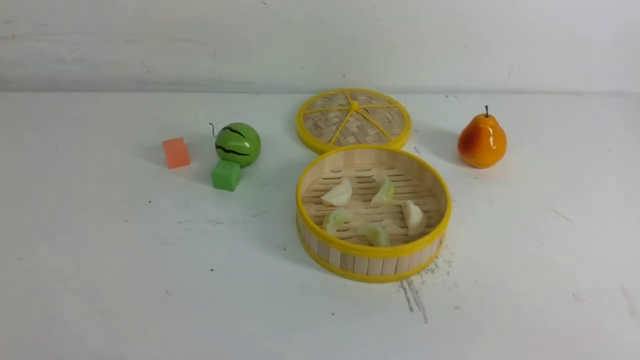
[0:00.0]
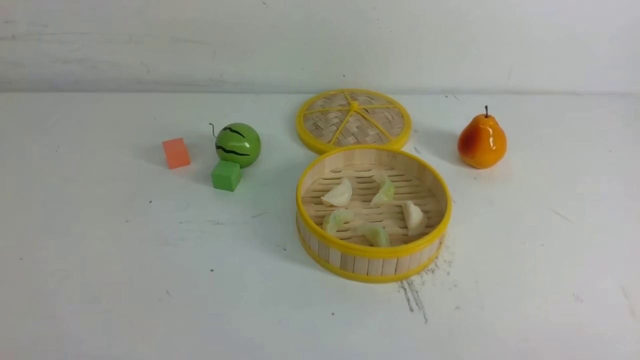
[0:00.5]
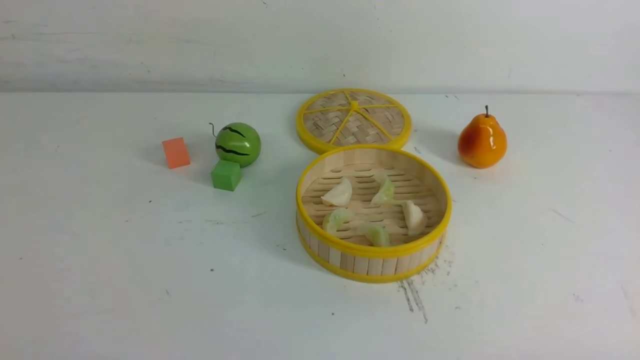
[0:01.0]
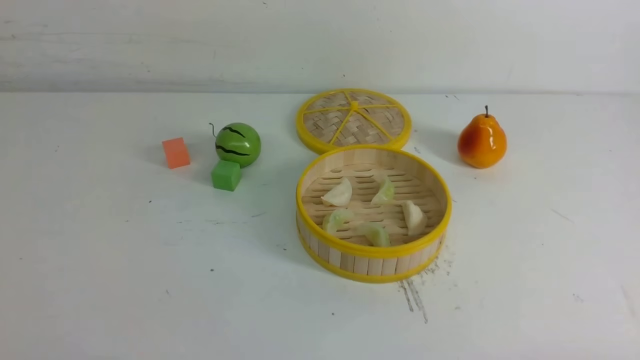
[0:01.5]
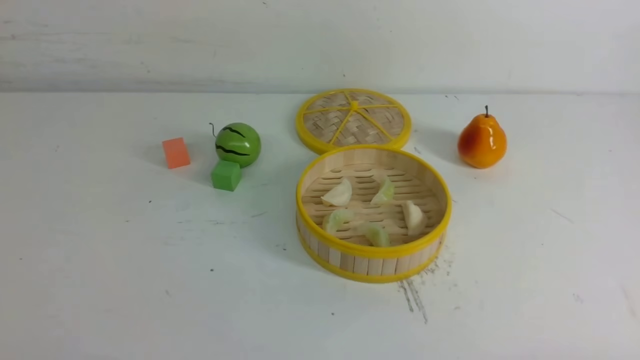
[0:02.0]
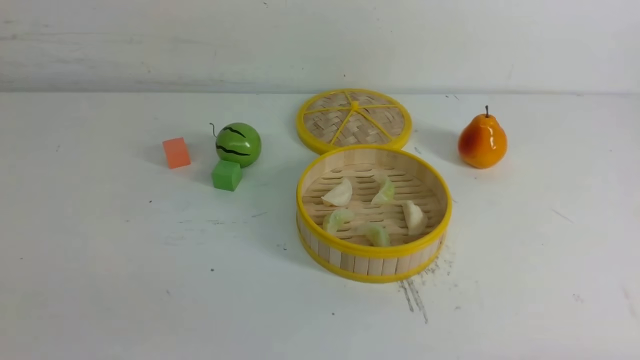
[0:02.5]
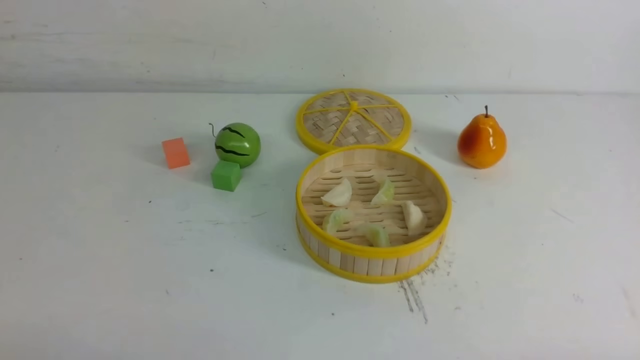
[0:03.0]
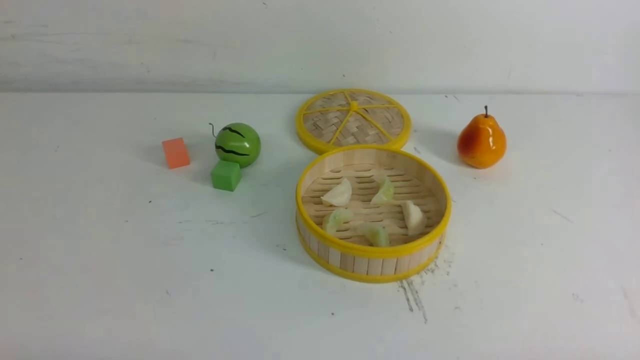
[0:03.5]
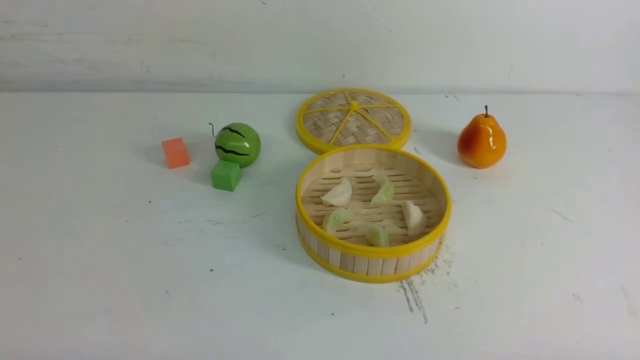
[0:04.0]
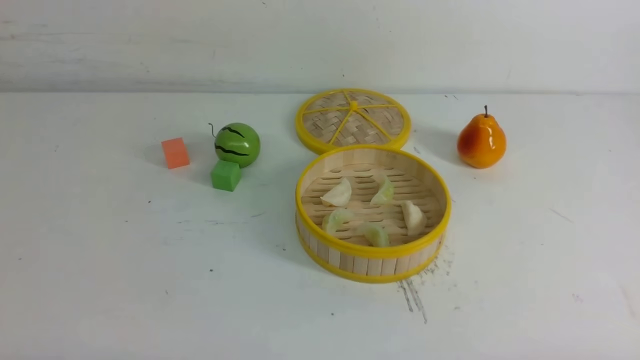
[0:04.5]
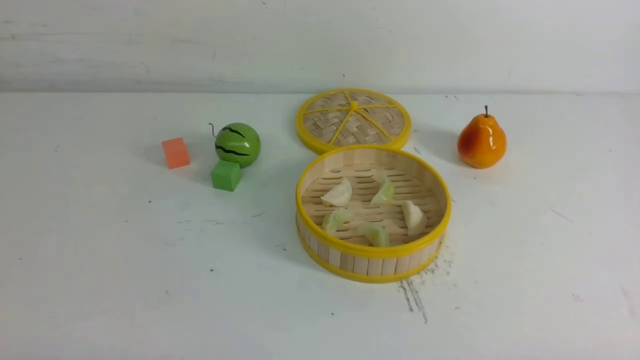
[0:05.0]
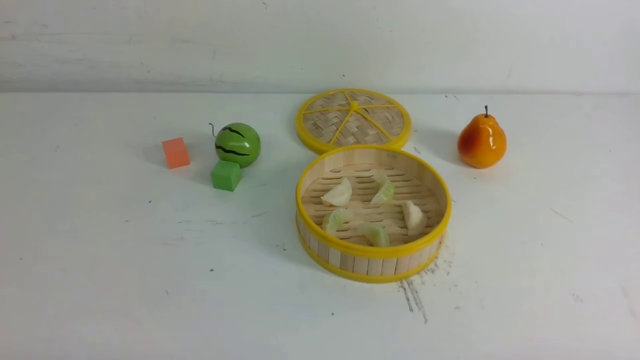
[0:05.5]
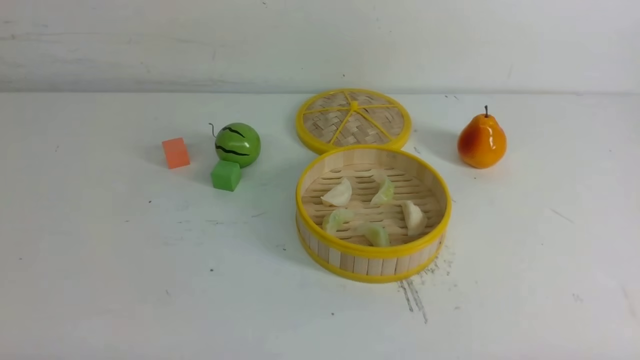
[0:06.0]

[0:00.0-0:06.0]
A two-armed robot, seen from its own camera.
Task of the whole recording: put the dumplings into the steamer on the white table.
0:04.0 to 0:06.0: Neither gripper changes place.

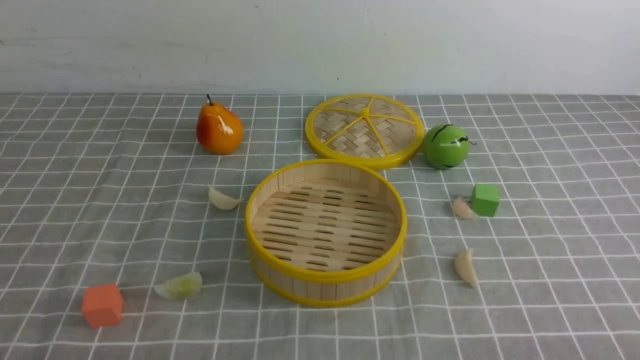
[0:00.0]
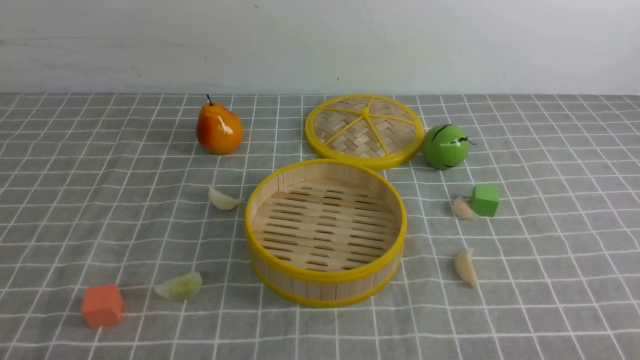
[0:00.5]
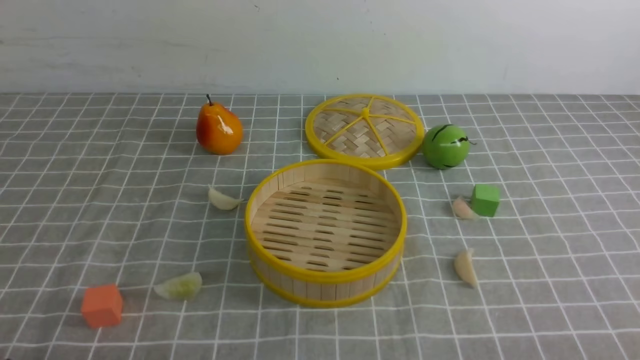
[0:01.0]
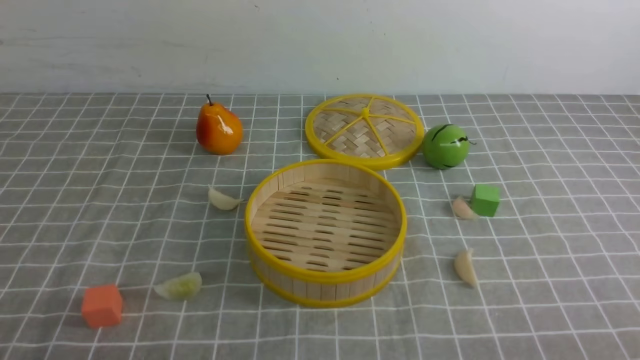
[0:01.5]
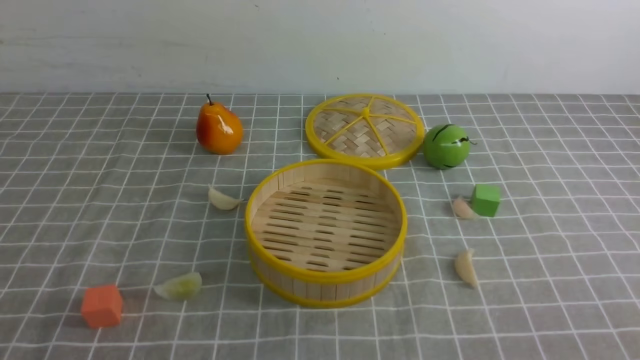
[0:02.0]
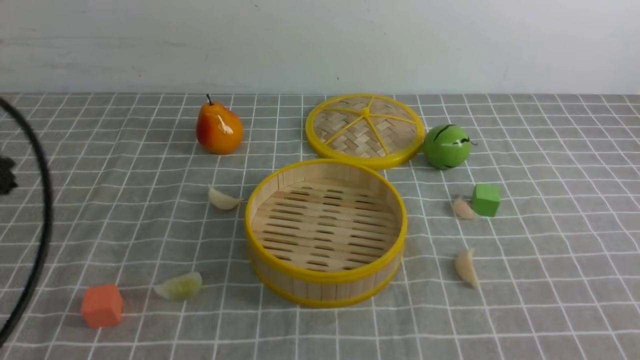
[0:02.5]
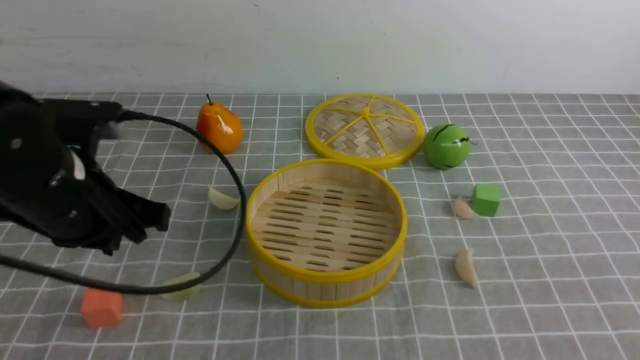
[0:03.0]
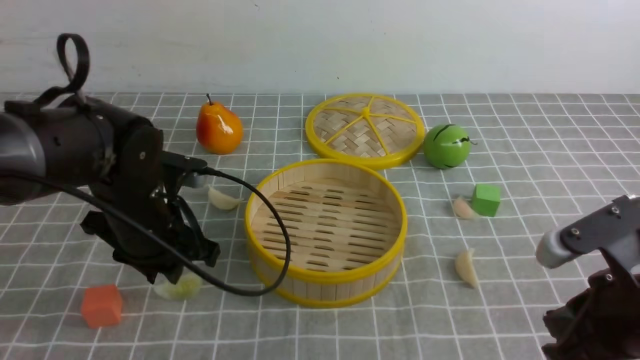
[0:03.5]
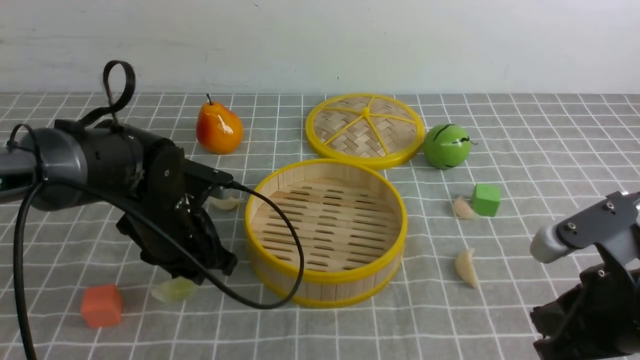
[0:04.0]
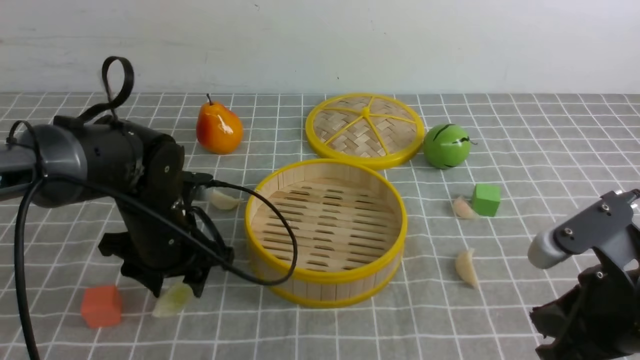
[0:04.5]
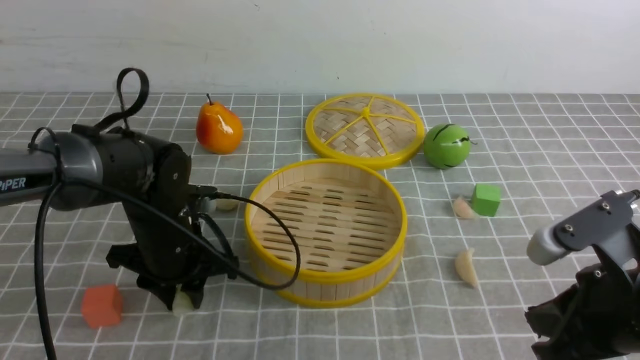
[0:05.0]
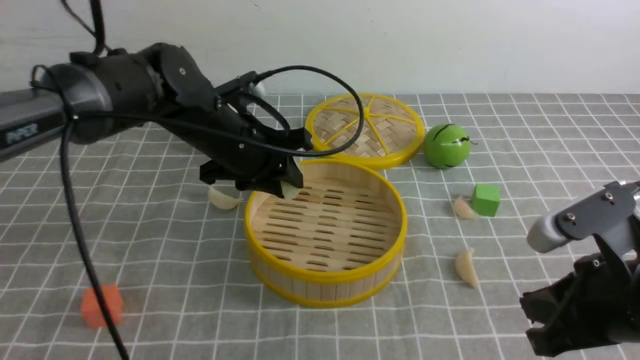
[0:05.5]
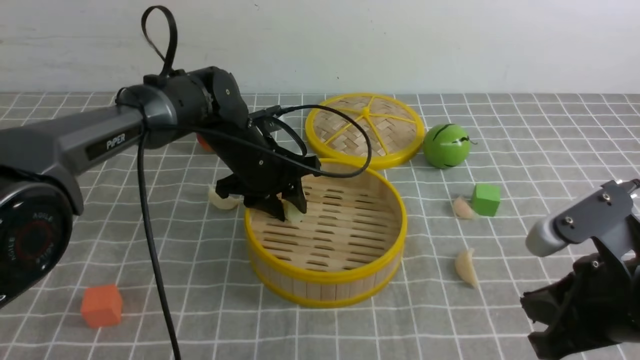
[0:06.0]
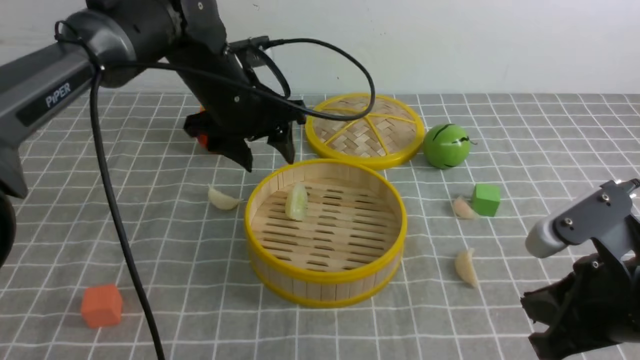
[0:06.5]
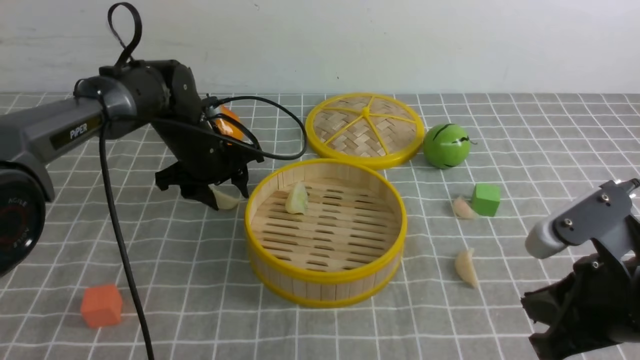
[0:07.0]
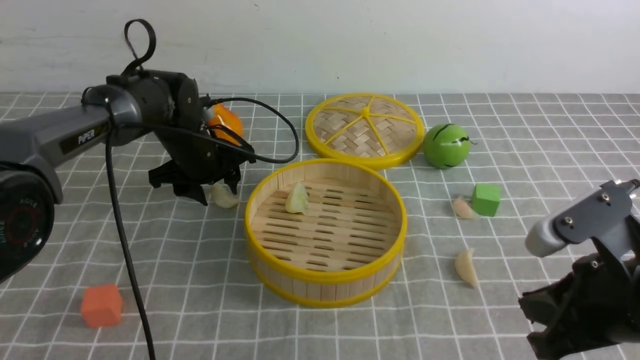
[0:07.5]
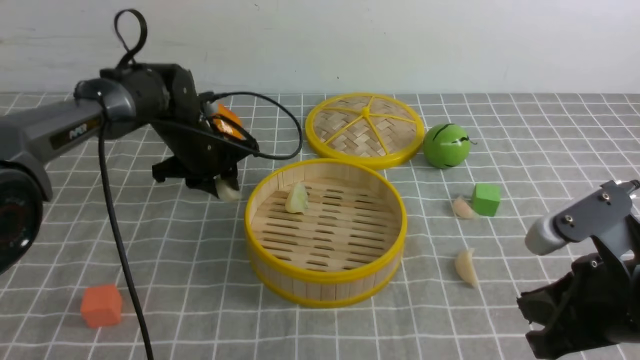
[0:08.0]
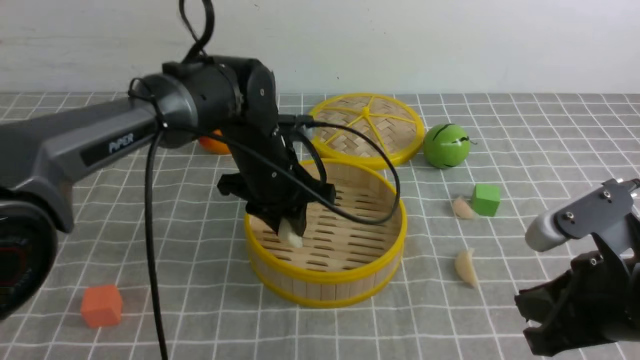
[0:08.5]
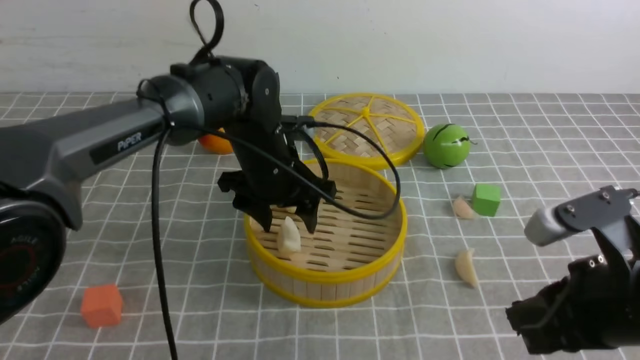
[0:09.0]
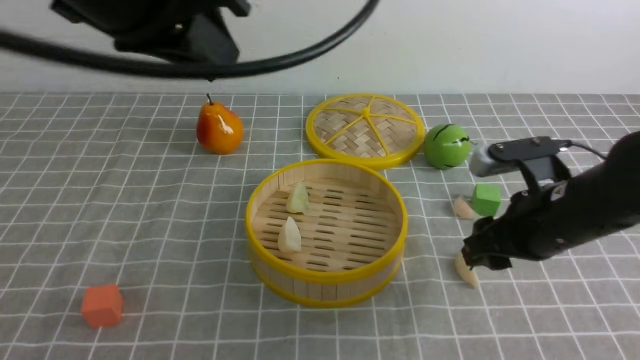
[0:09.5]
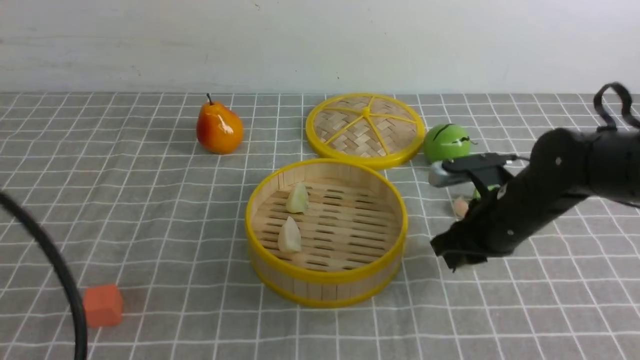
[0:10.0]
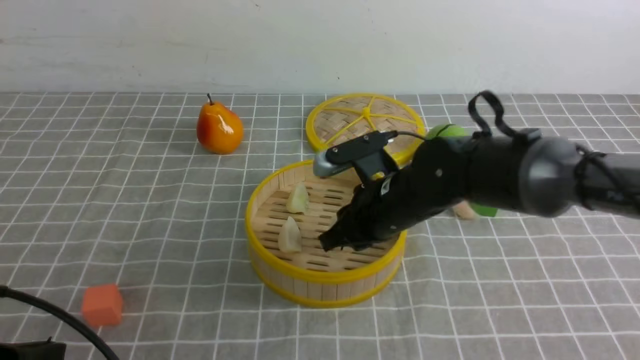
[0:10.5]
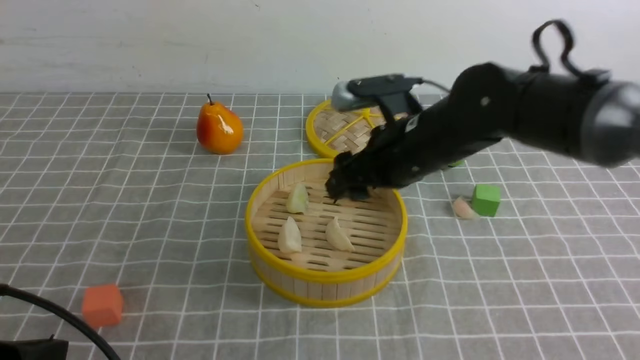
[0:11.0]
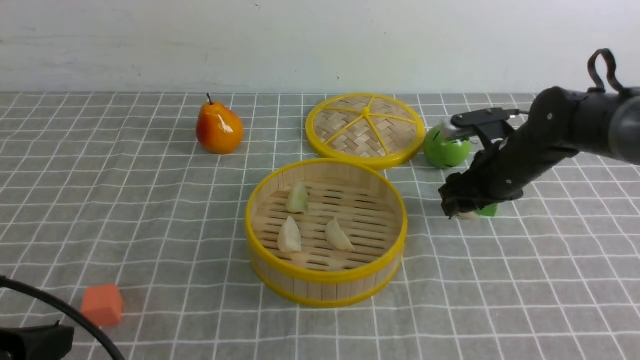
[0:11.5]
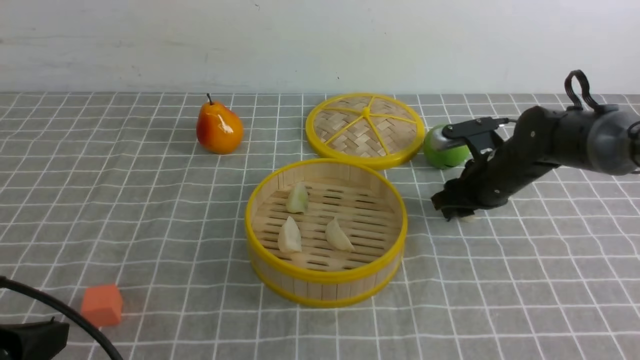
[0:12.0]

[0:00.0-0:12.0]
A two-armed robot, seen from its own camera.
Task of the whole recording: put the dumplings into the steamer on the table with the grey tablecloth.
Step, 0:00.0 to 0:05.0: use the left arm to grab a dumpling.
Step, 0:05.5 to 0:06.0: use the left arm to put the dumpling into the steamer.
Step, 0:06.5 to 0:07.5: use the left arm to grab a dumpling.
Step, 0:08.0 to 0:09.0: use the left arm to put the dumpling into the steamer.
0:02.0 to 0:04.0: The left gripper goes roughly 30 cm forward, and opens up. The right gripper heads forward and to the left, covering about 15 cm, and closes its fingers.
0:04.0 to 0:06.0: The left gripper heads forward and to the right, covering approximately 15 cm.
0:06.0 to 0:08.0: The left gripper swings up and down, about 10 cm each way, with 2 reversals.
0:08.0 to 0:10.0: The right gripper heads forward, covering some 15 cm, and opens, then closes once more, while the left gripper heads backward, covering roughly 35 cm, and closes its fingers.
0:10.0 to 0:12.0: The right gripper travels forward by about 10 cm, moves approximately 10 cm to the left and comes back, and opens and closes again. Meanwhile the left gripper goes approximately 10 cm downward.

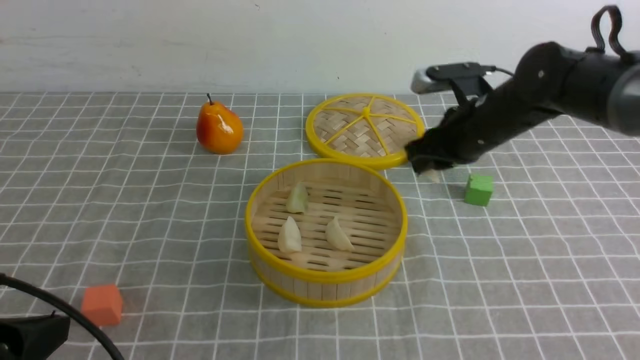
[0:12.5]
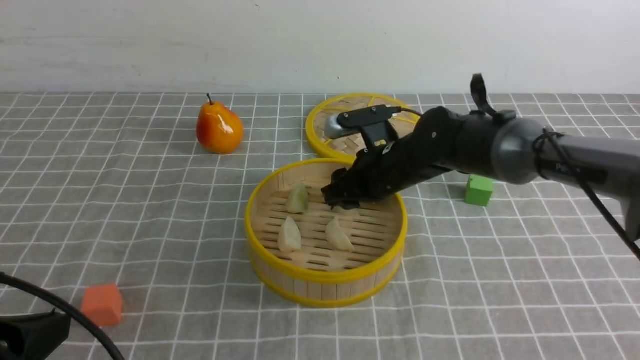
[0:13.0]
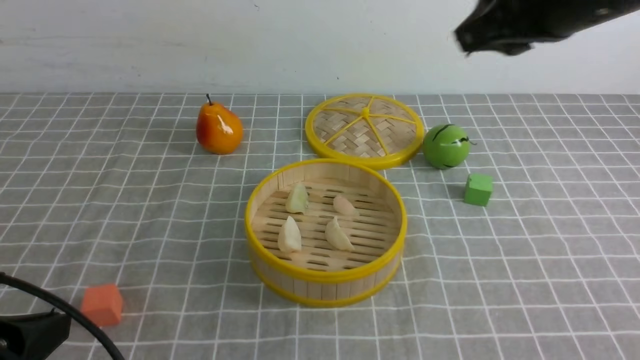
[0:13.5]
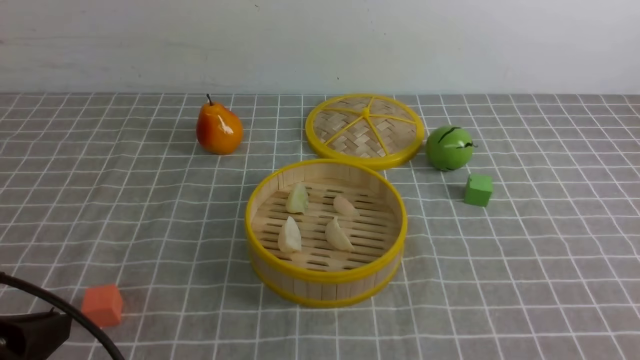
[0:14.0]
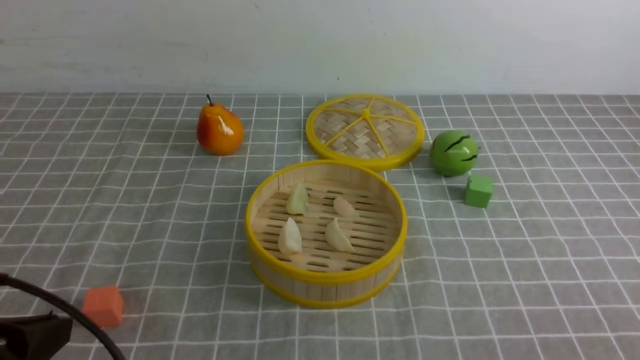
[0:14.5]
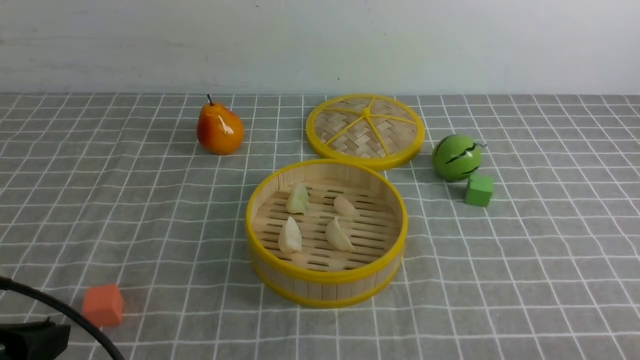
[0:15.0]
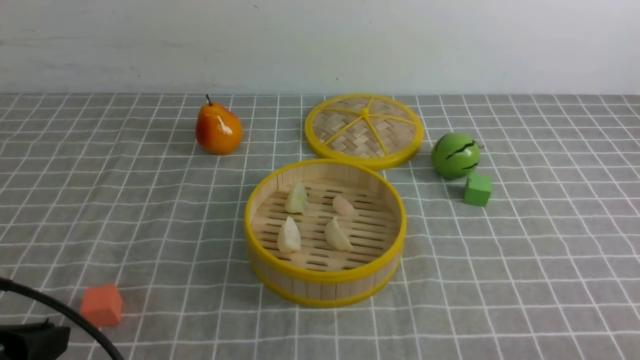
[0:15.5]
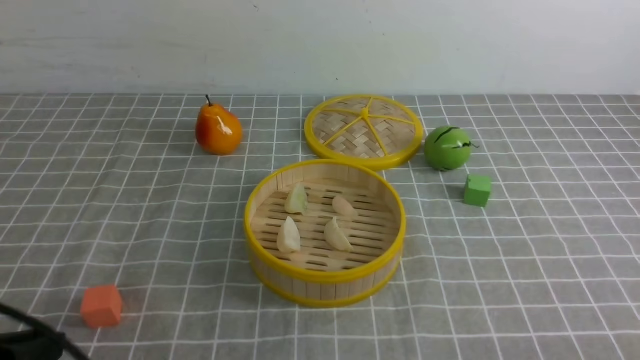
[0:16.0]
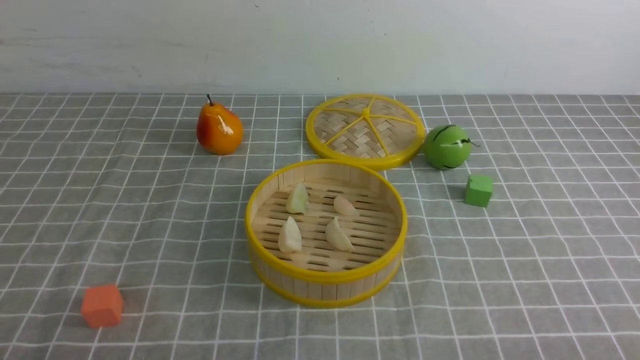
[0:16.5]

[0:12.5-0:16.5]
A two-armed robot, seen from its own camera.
Task of the whole recording: put the dumplings into the steamer on the table with the grey tablecloth.
Step, 0:12.5 to 0:13.0: use the right arm to put the dumpling into the steamer.
0:12.5 to 0:14.5: The right gripper travels backward by some 40 cm, and opens, then closes once more.
0:14.5 to 0:16.5: The left gripper travels downward and backward by some 10 cm.
